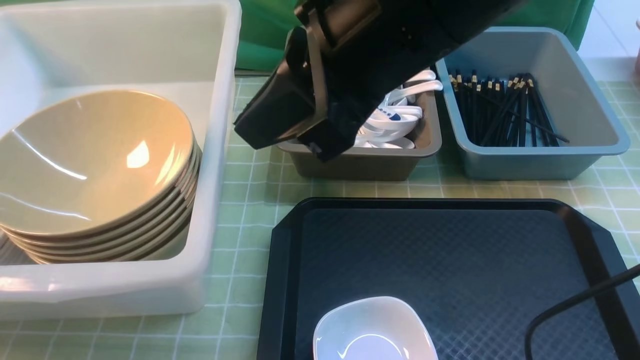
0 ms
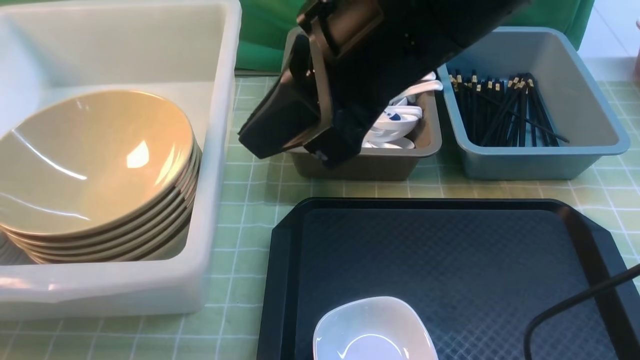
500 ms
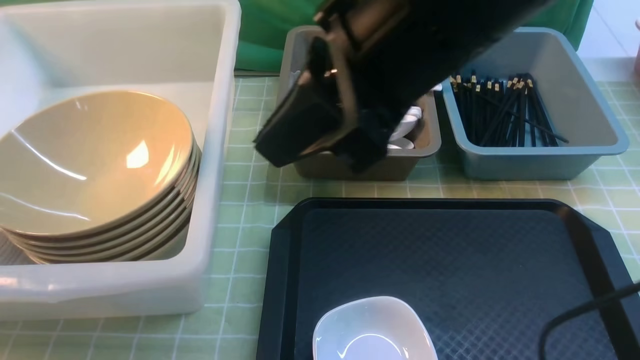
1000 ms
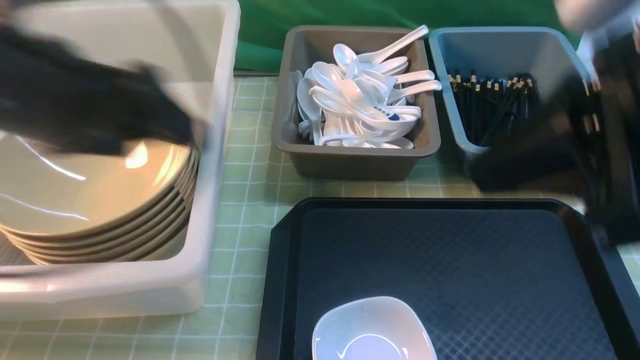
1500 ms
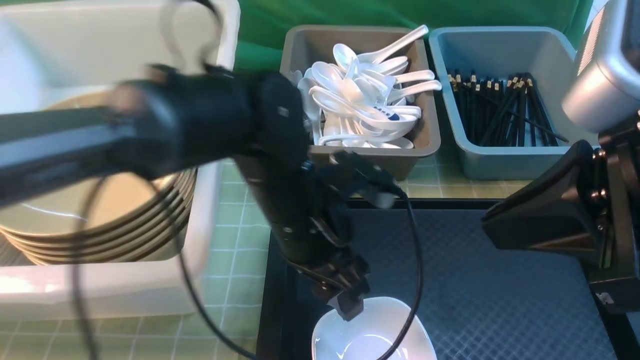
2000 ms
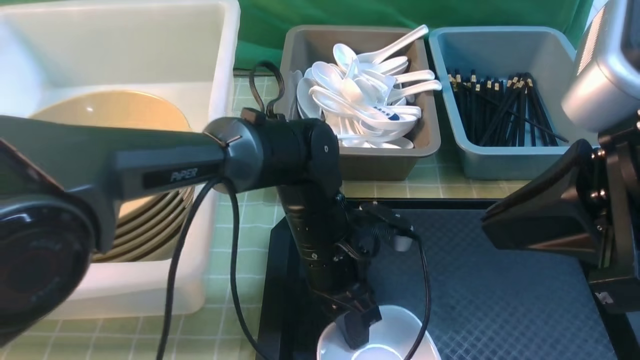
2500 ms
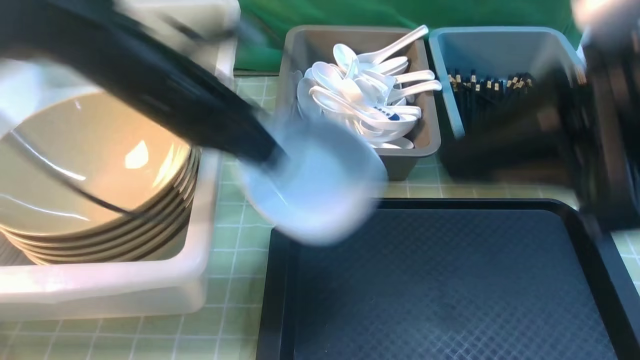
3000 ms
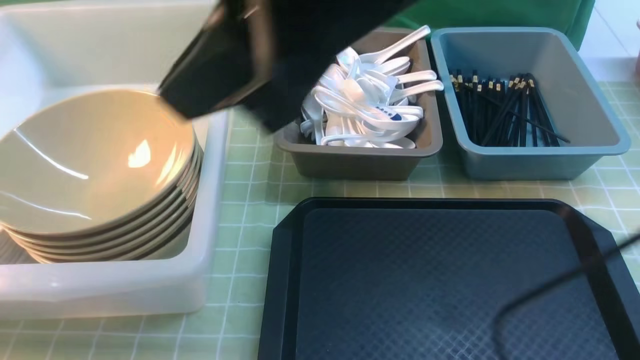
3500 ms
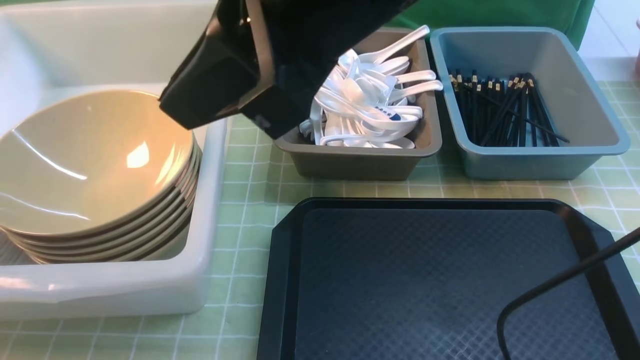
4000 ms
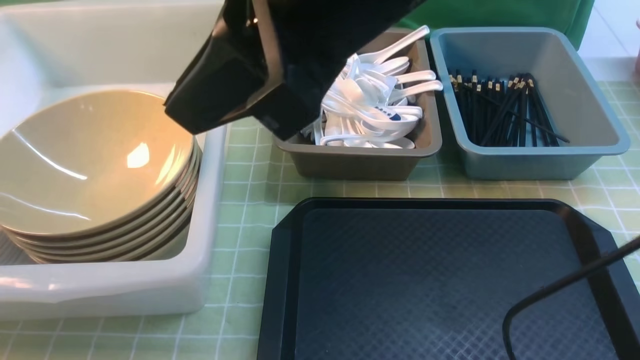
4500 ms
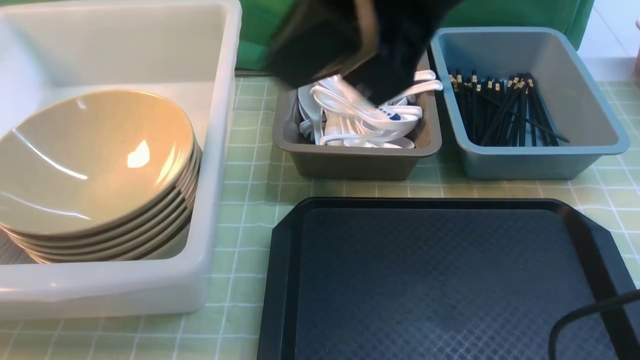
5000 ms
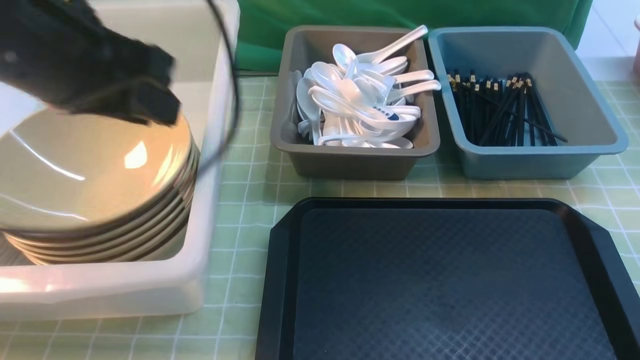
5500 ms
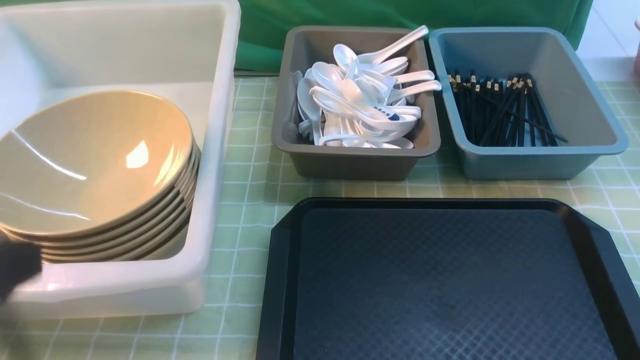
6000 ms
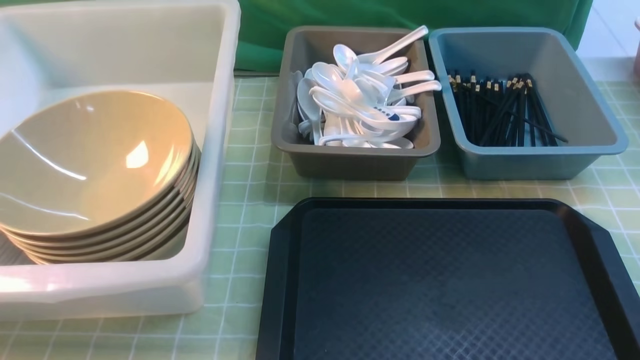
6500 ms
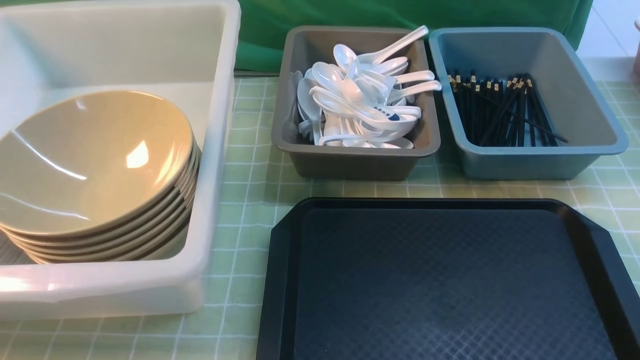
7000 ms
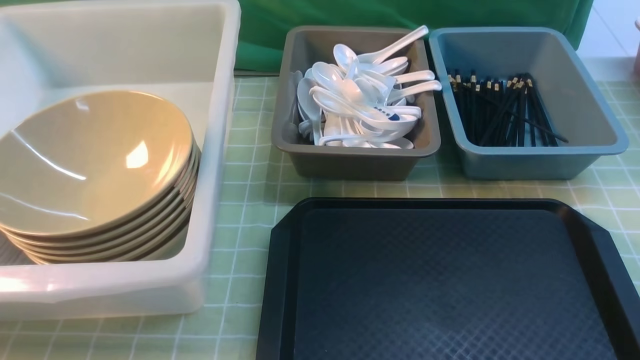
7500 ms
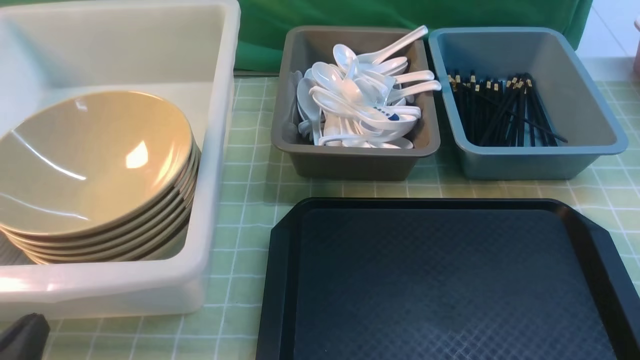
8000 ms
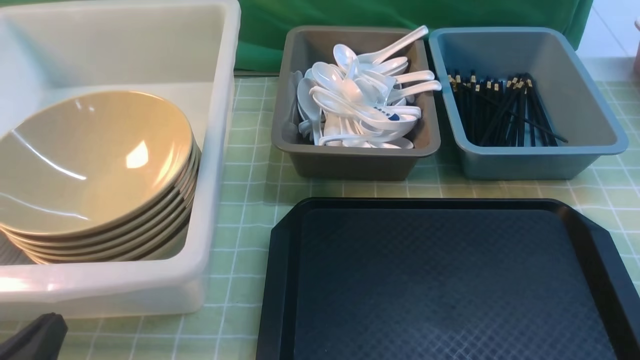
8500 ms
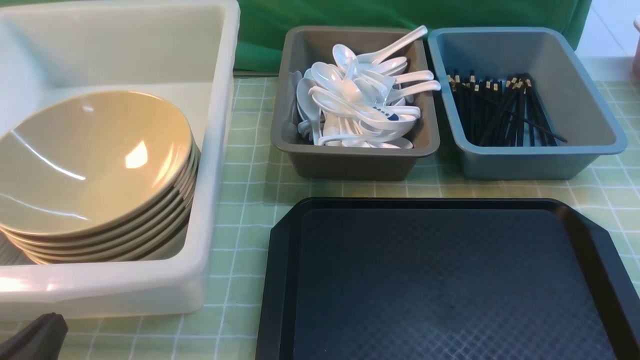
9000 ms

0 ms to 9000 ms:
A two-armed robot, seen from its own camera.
Task of the whole recording: on green table put chopsticks spoon bowls plates into blue grey white boxes.
Step, 500 ms to 2500 ms: use the left arm to grab the plate.
Step, 3000 ms to 5000 ms: use the left arm to put the plate into the large storage box on the left.
0 ms to 2000 ms: The left gripper is displaced to the right by about 40 cm, and opens its fingers, while the right gripper moves to the right and backward, some 15 cm.
2000 ms to 4500 ms: The right gripper travels to the left, upward and forward by approximately 20 cm. The left gripper is displaced to the left by about 40 cm, and closes, then reopens.
4500 ms to 7000 ms: The right gripper heads to the right, downward and backward, covering about 35 cm. Meanwhile the left gripper goes roughly 30 cm backward and to the right, and closes up.
7000 ms to 9000 ms: The left gripper goes about 15 cm downward and forward.

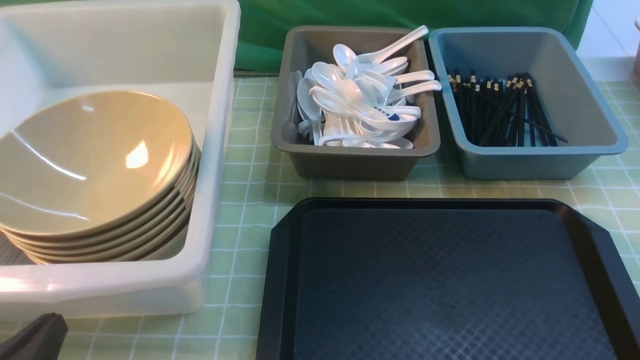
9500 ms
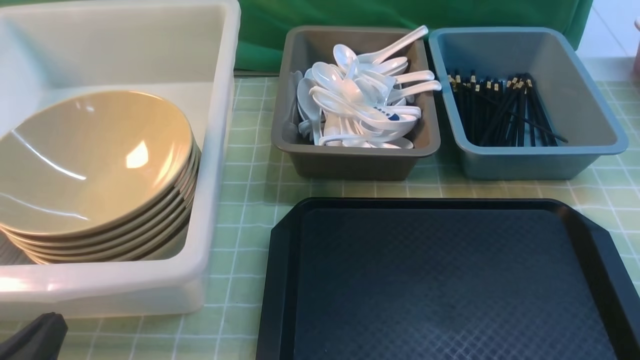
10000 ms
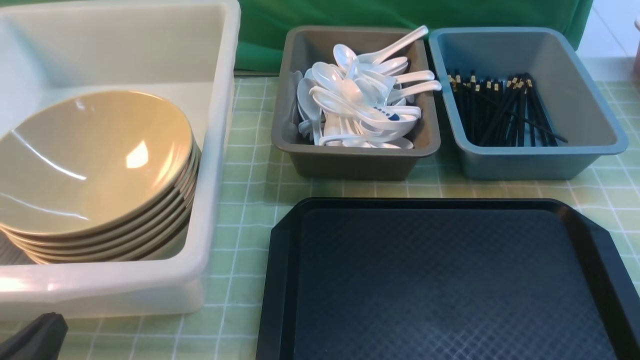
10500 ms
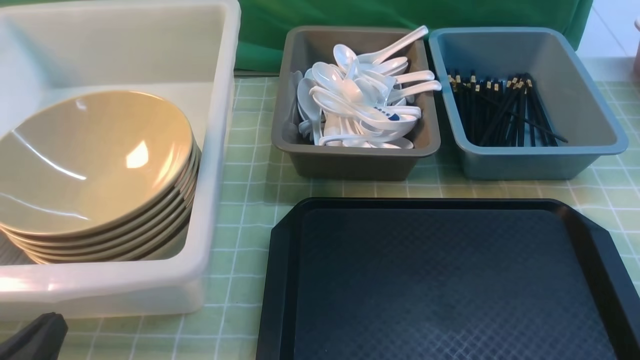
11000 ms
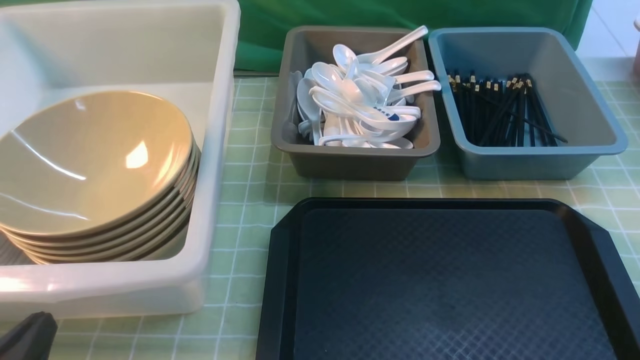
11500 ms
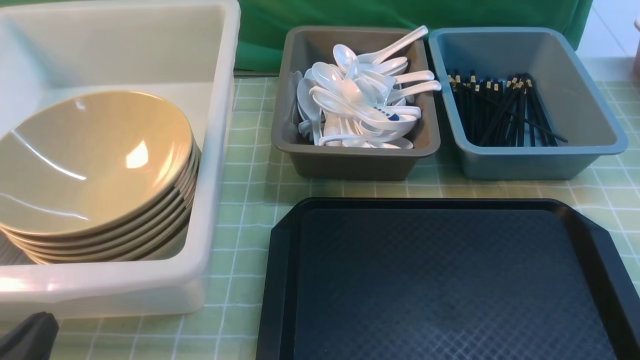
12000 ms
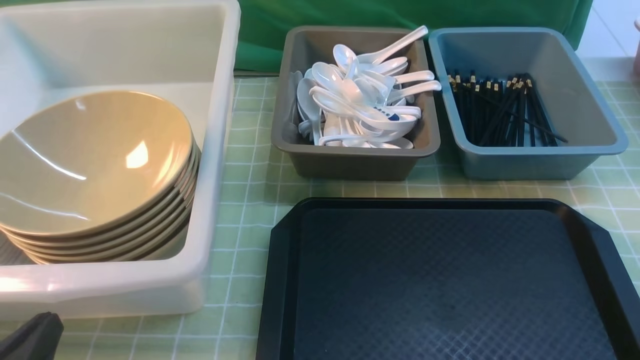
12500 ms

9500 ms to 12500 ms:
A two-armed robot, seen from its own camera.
Task of the whole recording: on green table put chopsticks spoon bowls plates into blue grey white boxes.
9500 ms to 12500 ms: Neither gripper changes place.
